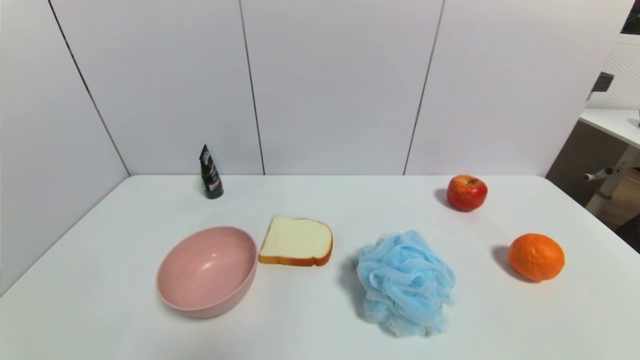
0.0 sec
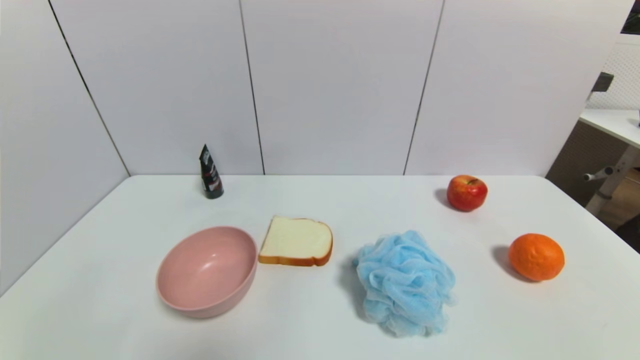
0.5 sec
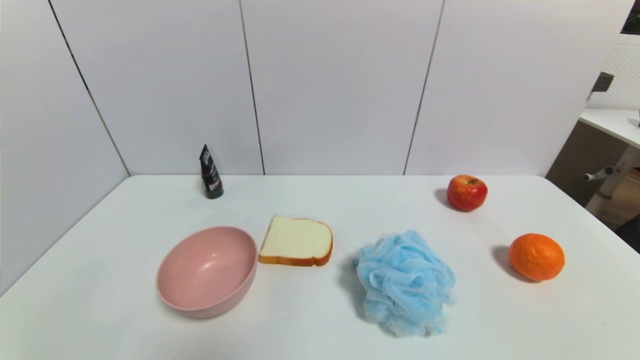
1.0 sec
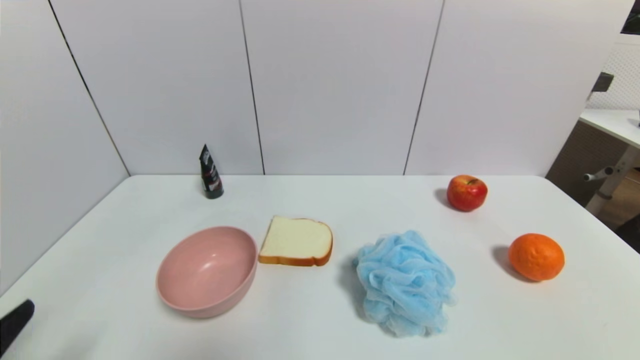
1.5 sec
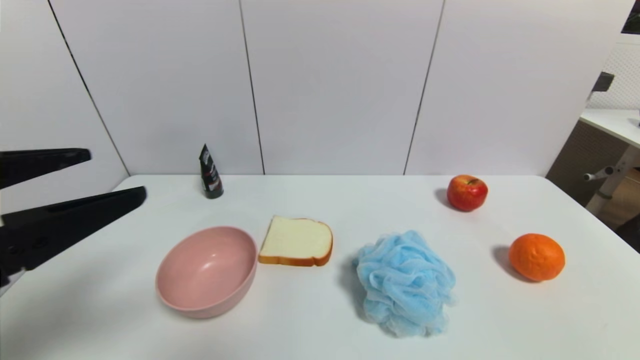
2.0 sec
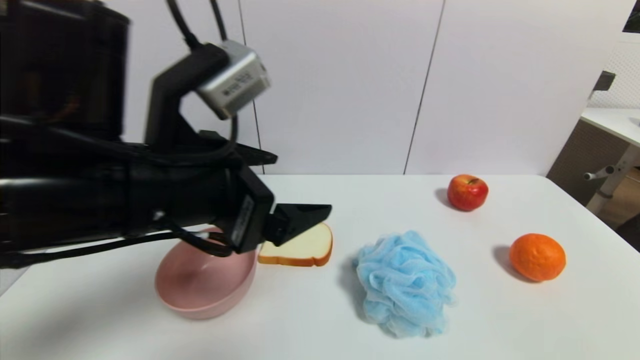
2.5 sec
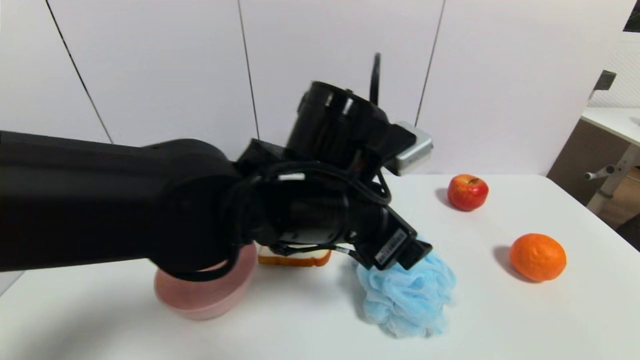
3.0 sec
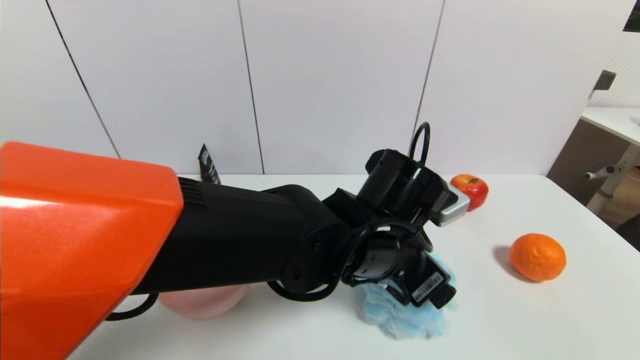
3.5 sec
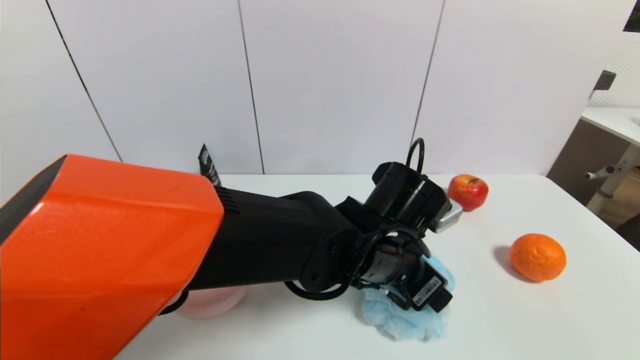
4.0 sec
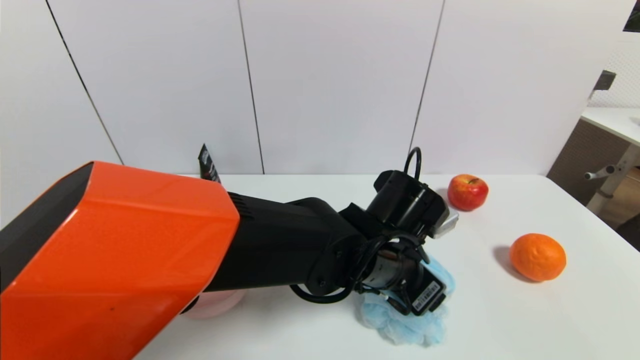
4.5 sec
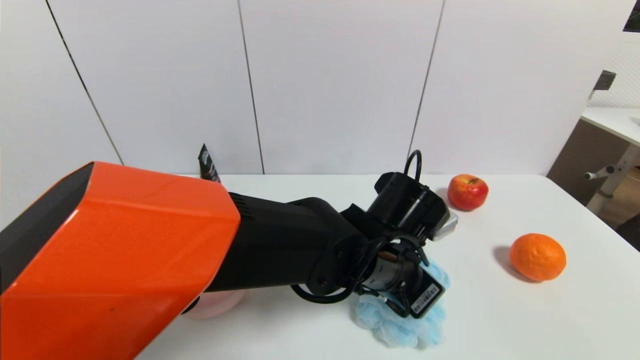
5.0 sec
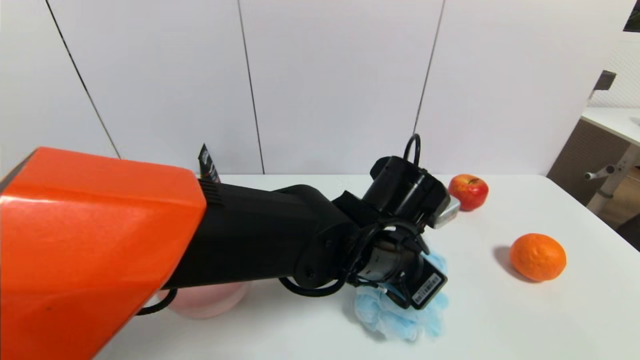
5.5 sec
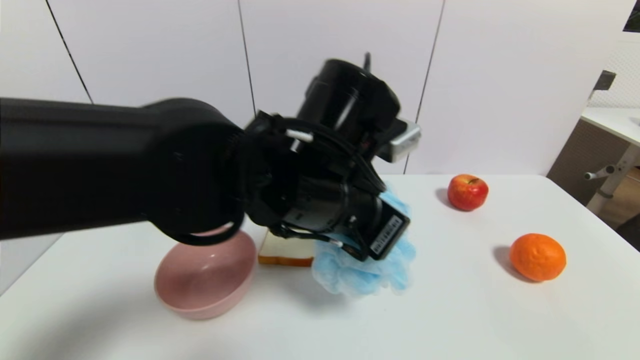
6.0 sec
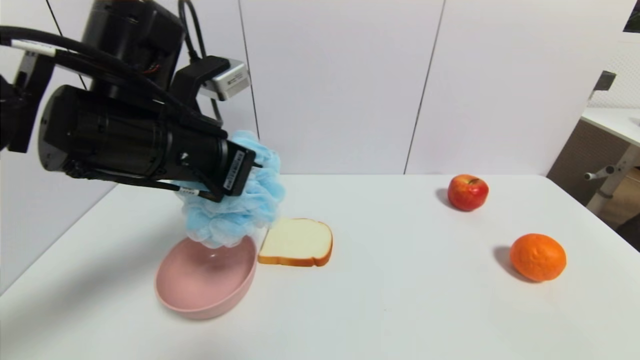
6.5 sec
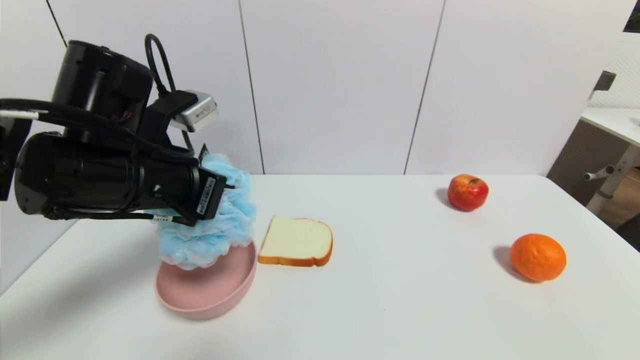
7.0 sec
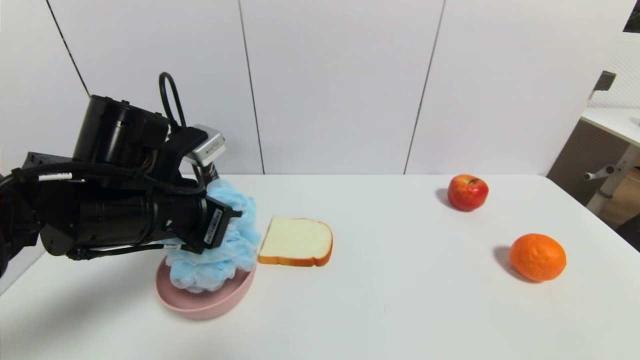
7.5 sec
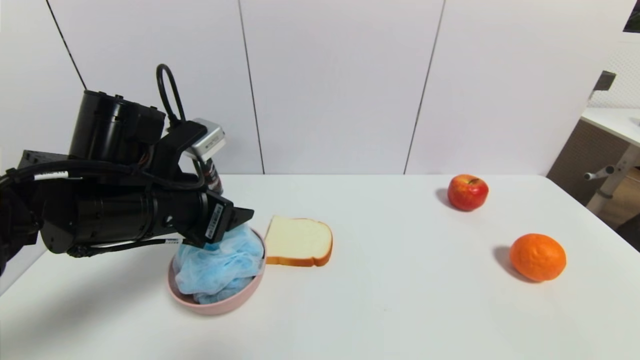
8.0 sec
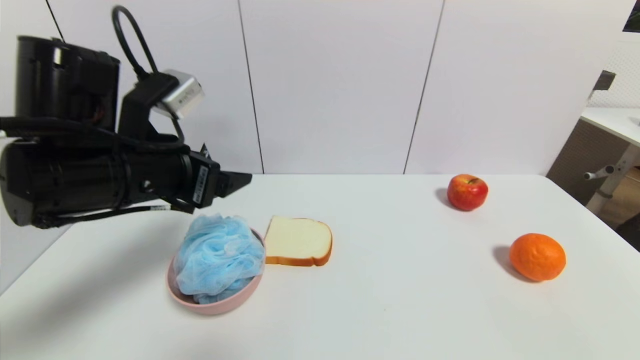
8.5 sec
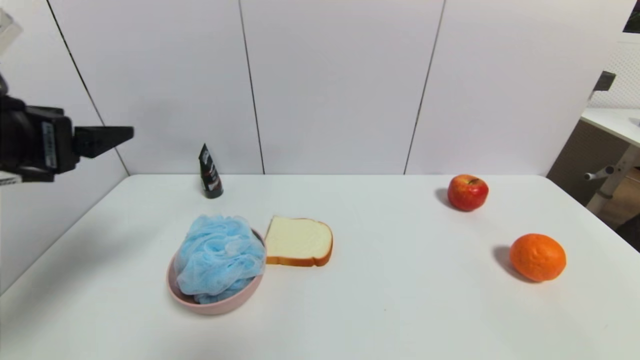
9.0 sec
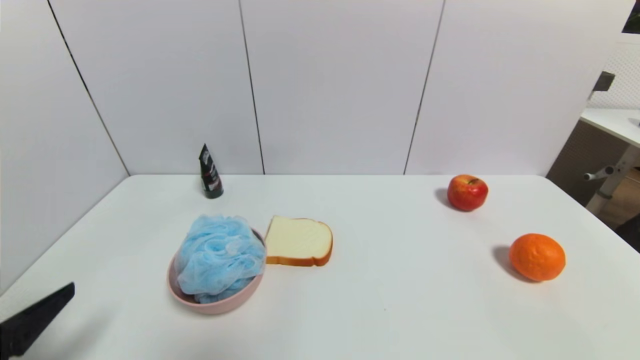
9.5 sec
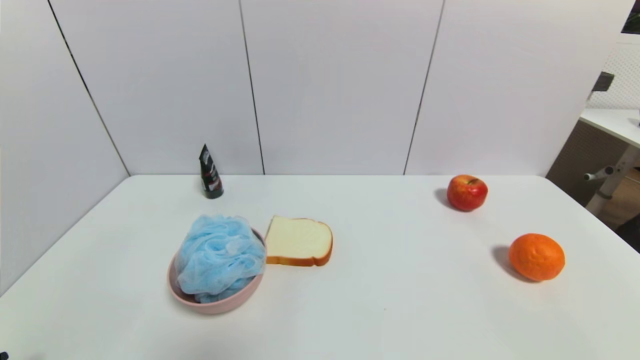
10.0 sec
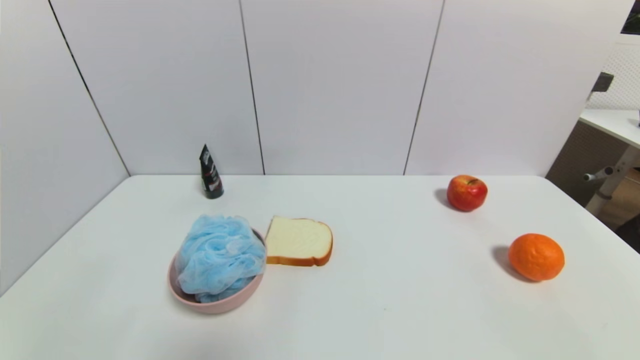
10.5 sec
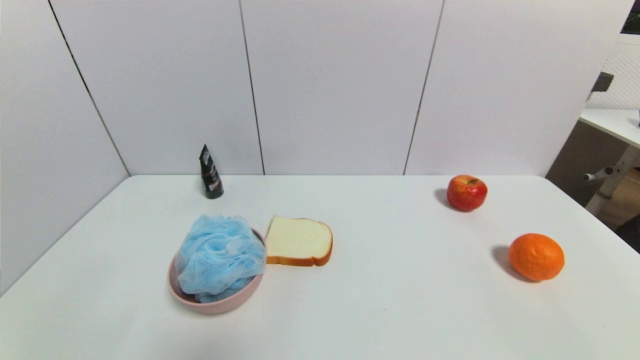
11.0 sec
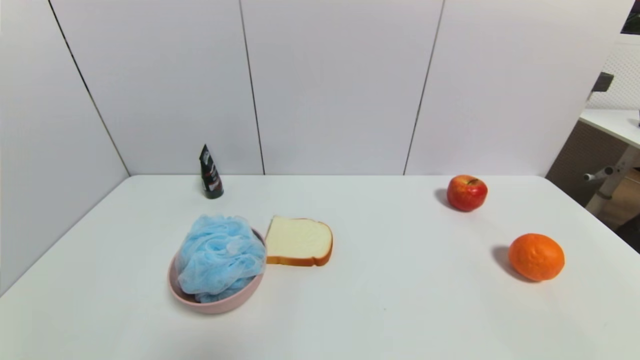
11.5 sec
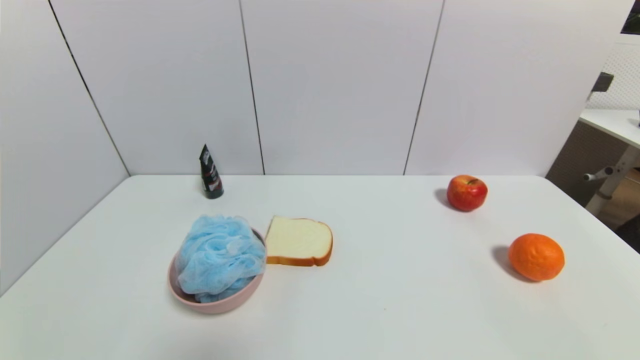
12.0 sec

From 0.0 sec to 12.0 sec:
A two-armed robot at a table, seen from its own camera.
Task of the whole recording: use a gripper to pick the target object and place on the pink bowl.
Step, from 0.0 sec to 5.0 sec: Grasp the shower sphere with the left gripper.
Step, from 5.5 sec to 8.0 sec: Place the shower sphere on the pink bowl with the left gripper.
From 0.0 sec to 2.0 sec: The left gripper heads upward and forward, covering about 25 cm.
From 2.0 sec to 4.0 sec: The left gripper shifts about 35 cm to the right, forward and downward.
From 4.0 sec to 6.0 sec: The left gripper shifts about 10 cm upward and to the left, and closes.
From 6.0 sec to 8.0 sec: The left gripper is displaced to the left by roughly 15 cm, and opens up.
From 8.0 sec to 10.0 sec: The left gripper is displaced backward, downward and to the left by approximately 30 cm.

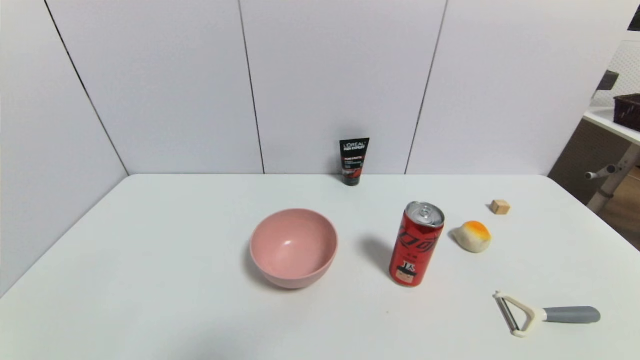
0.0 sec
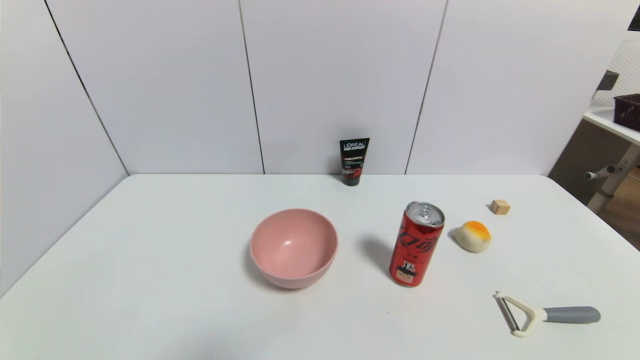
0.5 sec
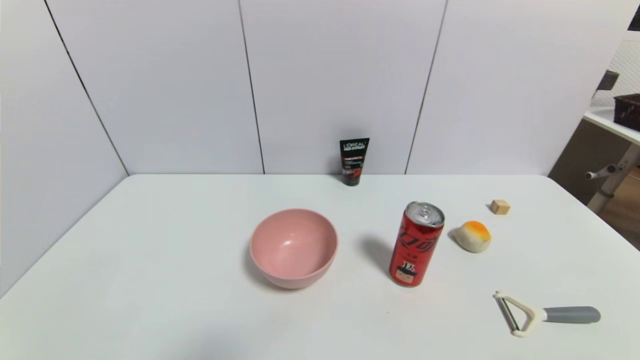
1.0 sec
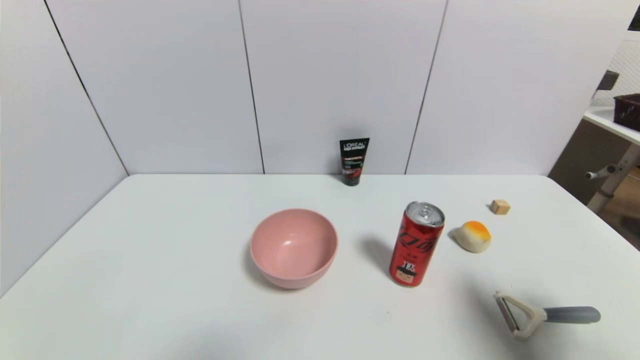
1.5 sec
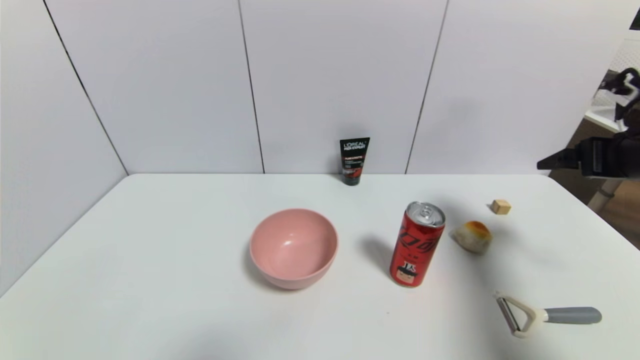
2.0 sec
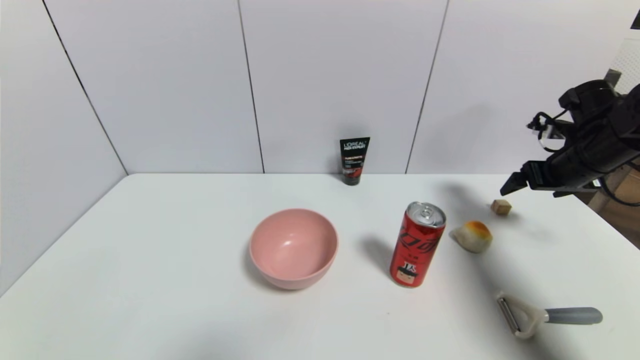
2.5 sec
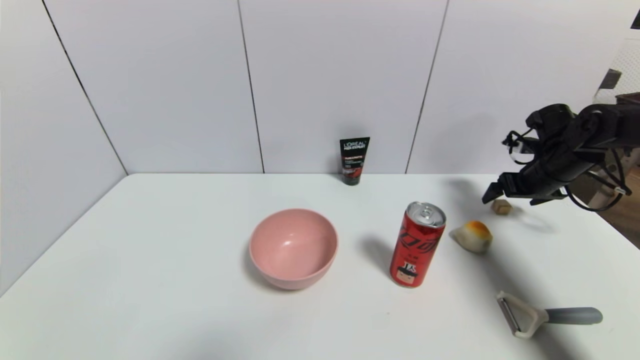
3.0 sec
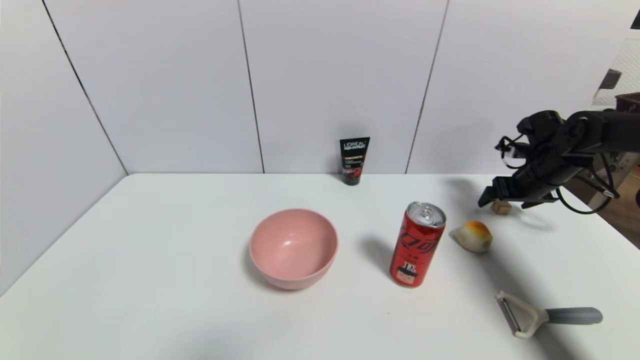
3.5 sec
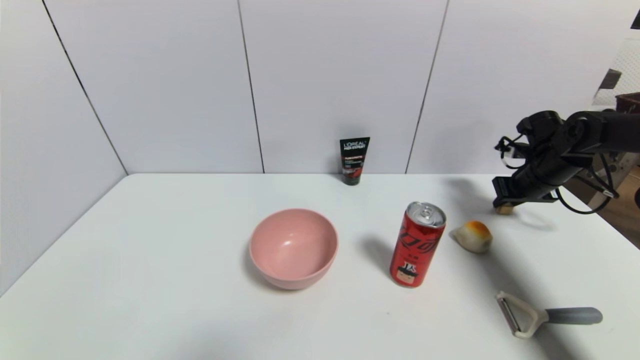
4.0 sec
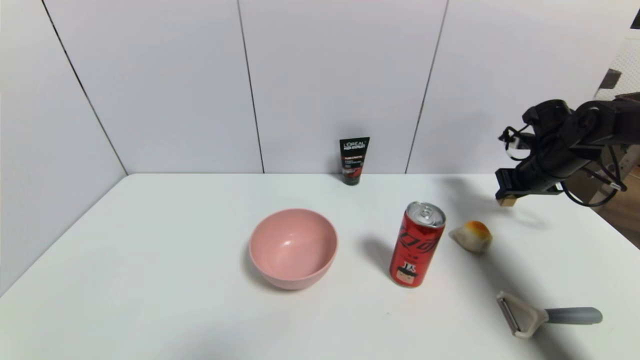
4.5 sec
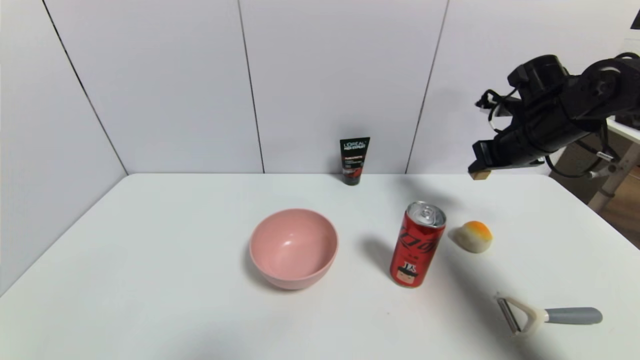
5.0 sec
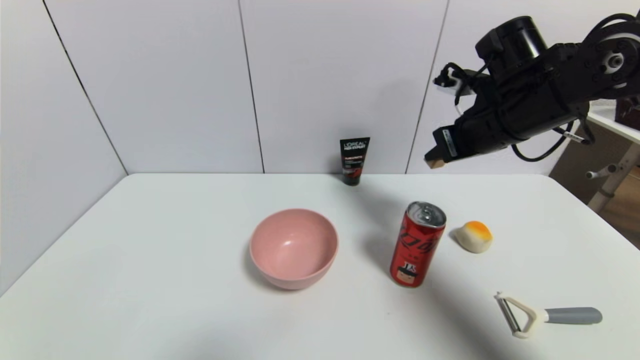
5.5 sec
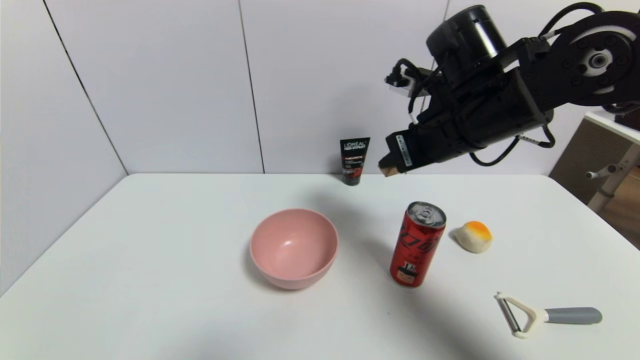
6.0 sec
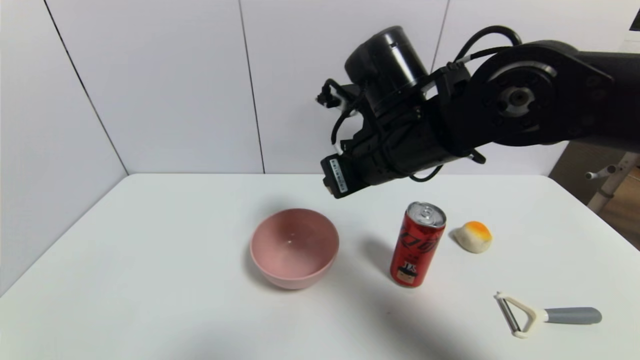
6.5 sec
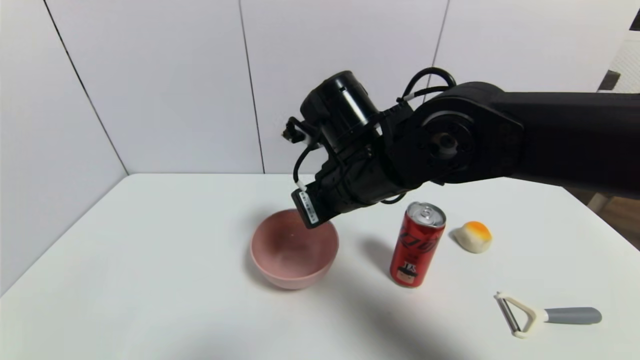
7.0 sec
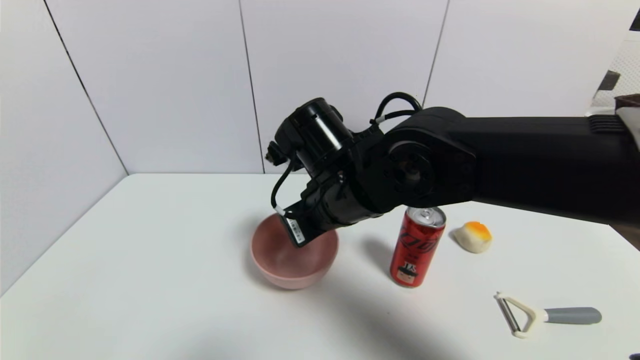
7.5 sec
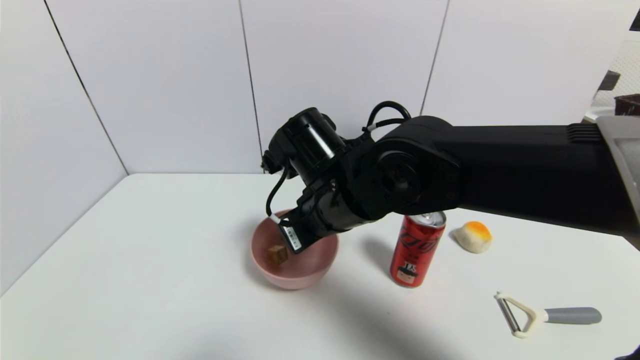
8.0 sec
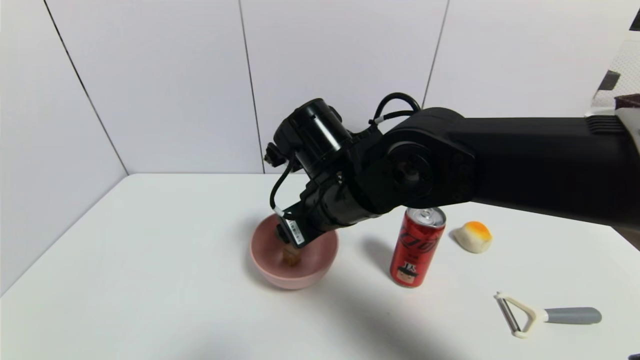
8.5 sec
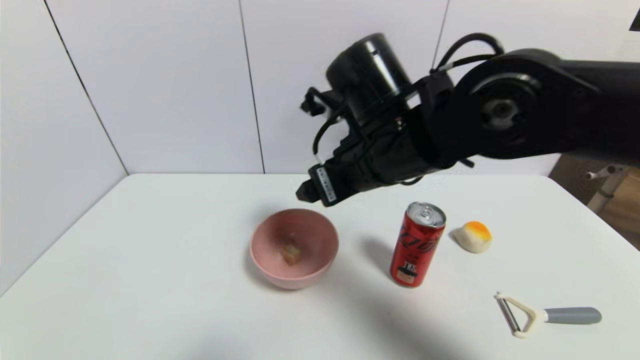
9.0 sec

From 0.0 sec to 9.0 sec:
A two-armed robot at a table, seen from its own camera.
Task of the whole recording: use a gripper to pick the target object and place on the pink bowl.
Step, from 0.0 sec to 4.0 sec: Grasp the square wooden block with the right gripper.
Step, from 4.5 sec to 8.5 sec: Place the square wooden block on the pink bowl with the right gripper.
From 0.0 sec to 2.0 sec: The right gripper shifts about 35 cm forward and upward.
From 2.0 sec to 4.5 sec: The right gripper goes approximately 15 cm forward and downward, and closes its fingers.
From 4.5 sec to 7.0 sec: The right gripper travels to the left and backward by about 40 cm.
From 7.0 sec to 9.0 sec: The right gripper shifts by roughly 5 cm, and opens.
